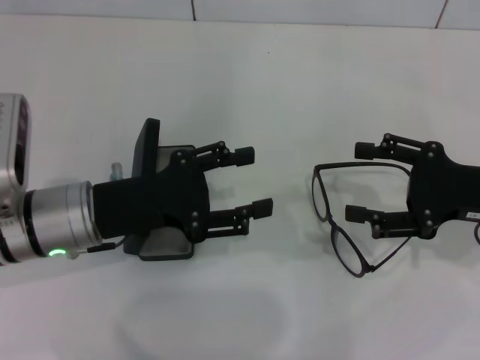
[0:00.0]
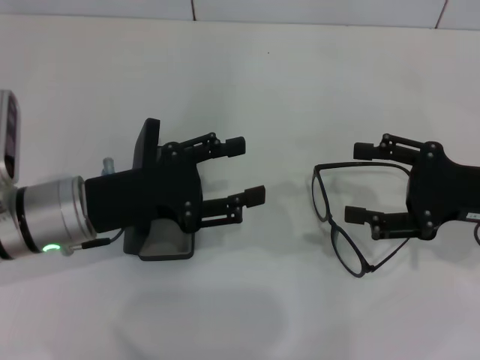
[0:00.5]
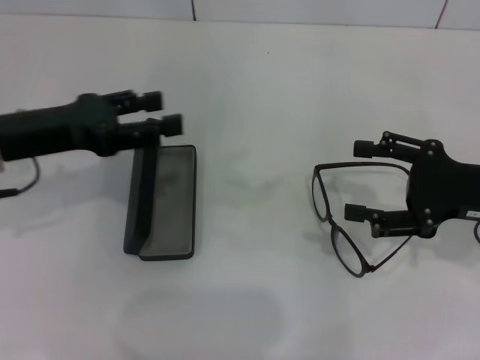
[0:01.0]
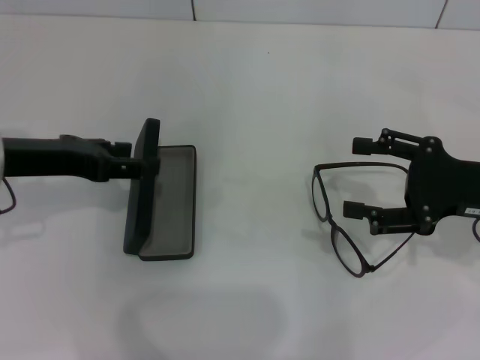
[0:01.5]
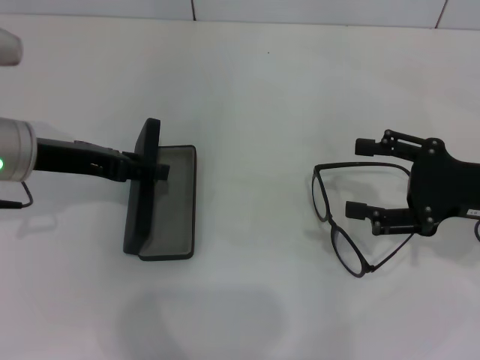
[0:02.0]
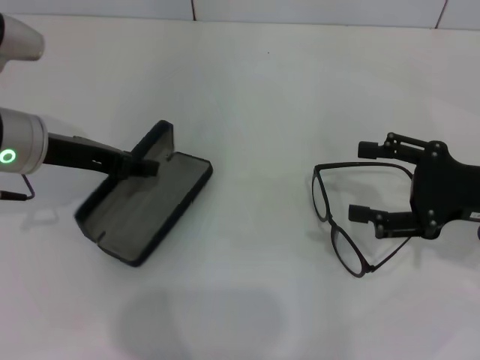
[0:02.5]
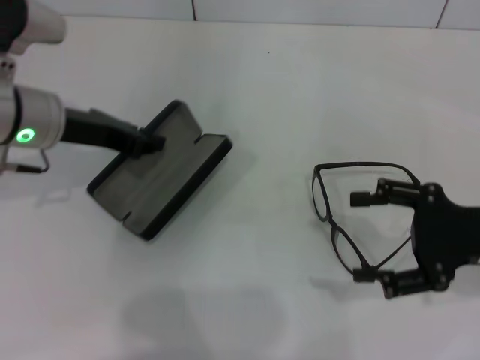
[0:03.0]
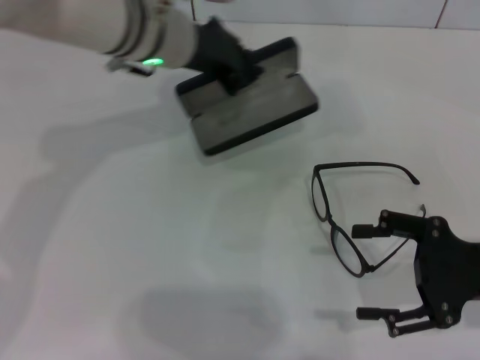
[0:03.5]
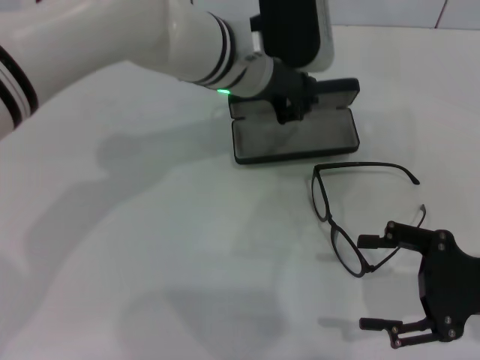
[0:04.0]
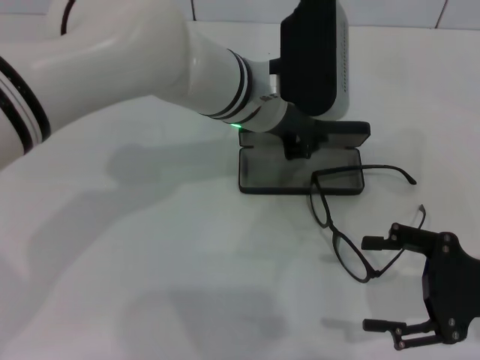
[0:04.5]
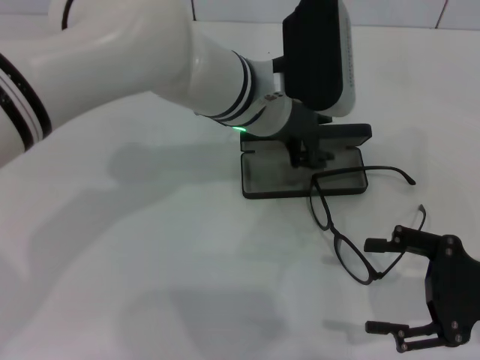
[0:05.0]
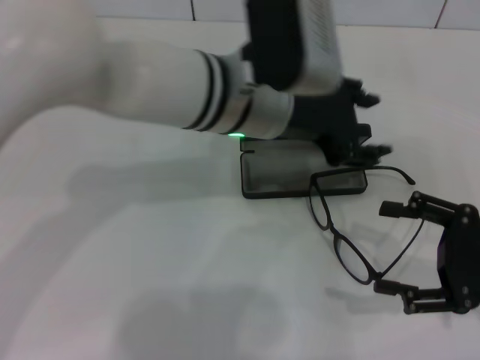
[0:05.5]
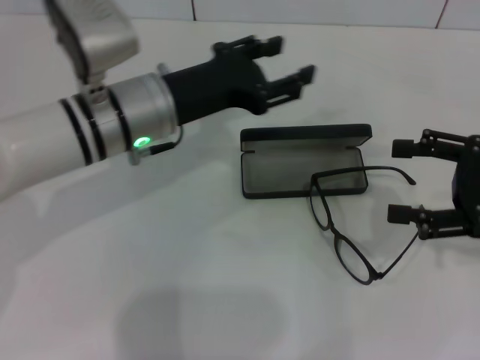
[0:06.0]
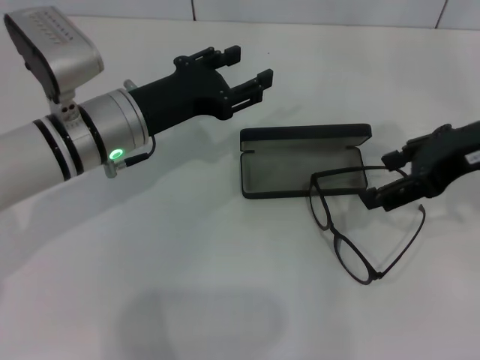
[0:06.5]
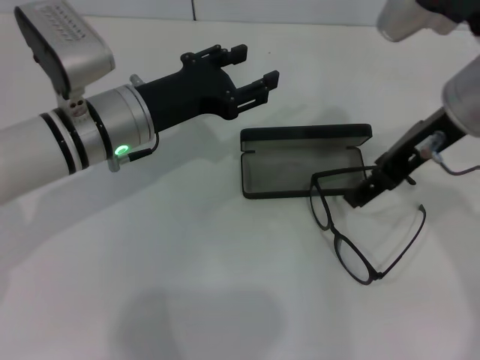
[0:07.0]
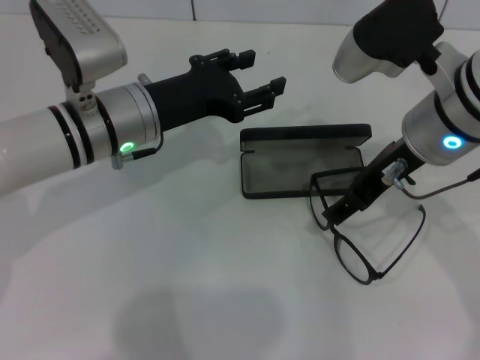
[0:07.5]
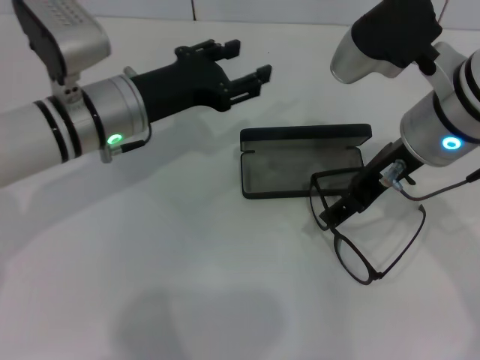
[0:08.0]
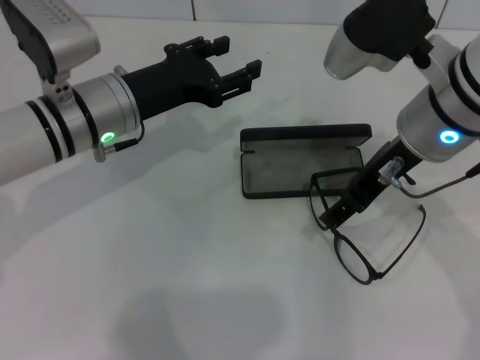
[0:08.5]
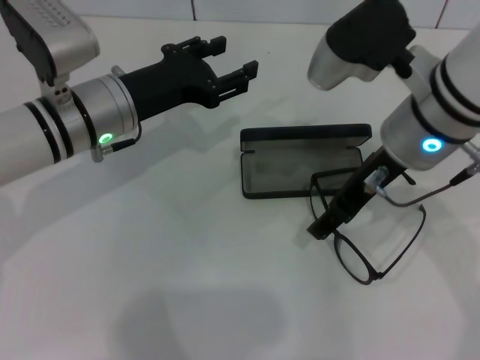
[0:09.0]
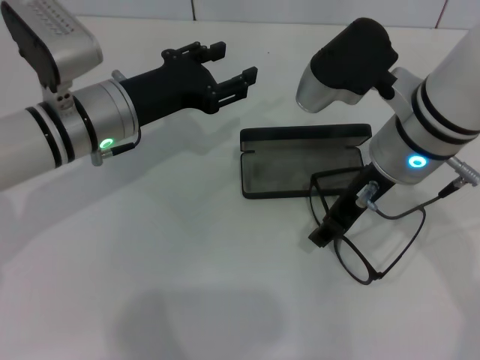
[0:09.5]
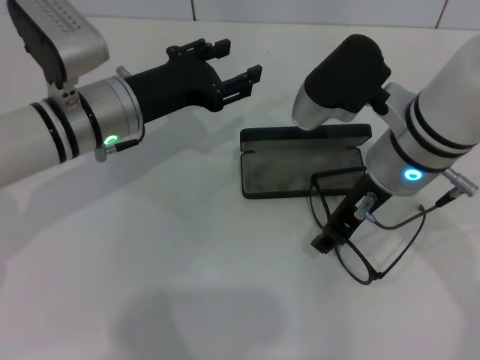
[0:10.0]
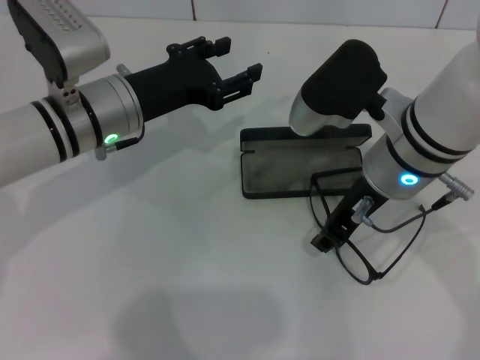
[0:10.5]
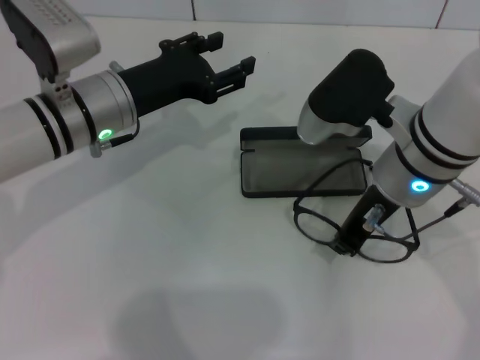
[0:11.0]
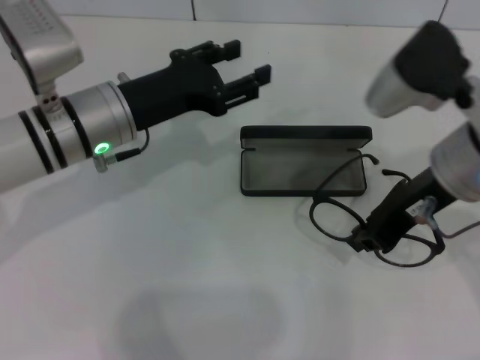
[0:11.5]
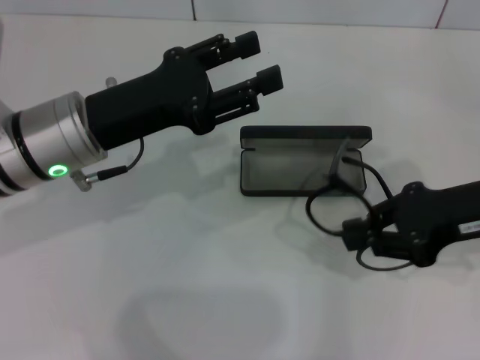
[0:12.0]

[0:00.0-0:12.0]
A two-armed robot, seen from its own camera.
Step, 0.0 to 2.0 s: Grab the glasses case with your left hand.
Step, 2.5 to 5.0 s: Place the glasses case in the center of the table with your left hand.
Step, 5.5 to 10.5 s: Grab the eyeglass frame with your right hand.
0.0 to 2.0 s: The left gripper travels forward and upward by roughly 5 cm.
2.0 to 4.0 s: The right gripper is displaced backward by about 5 cm; the left gripper is displaced to the right by some 20 cm, and closes.
4.0 to 6.0 s: The right gripper travels upward by some 5 cm, while the left gripper shifts some 10 cm to the left and backward, and opens up.
6.0 to 8.0 s: The right gripper goes some 15 cm to the left.
8.0 to 10.0 s: The right gripper closes up.
10.0 to 12.0 s: The left gripper travels backward by roughly 5 cm. The right gripper goes approximately 15 cm to the right, and closes its fingers.

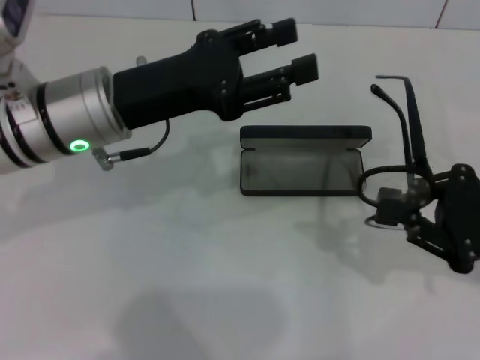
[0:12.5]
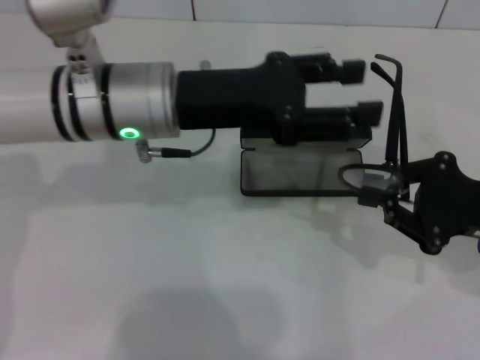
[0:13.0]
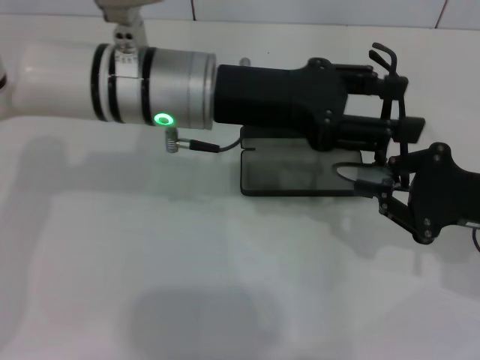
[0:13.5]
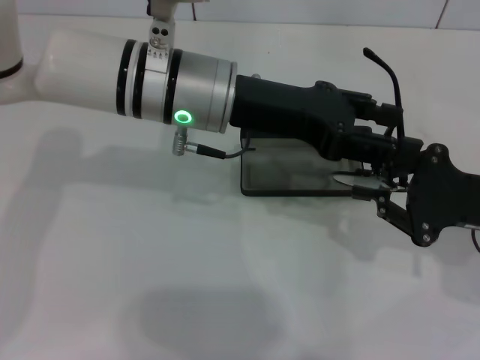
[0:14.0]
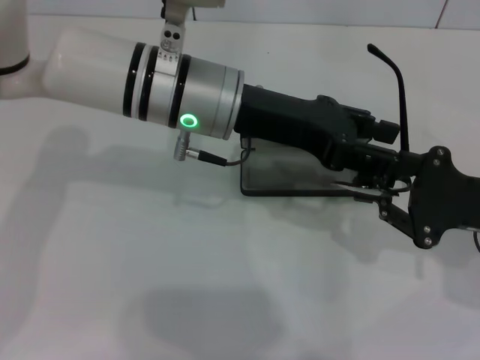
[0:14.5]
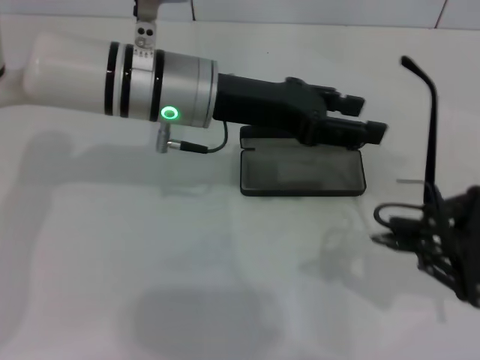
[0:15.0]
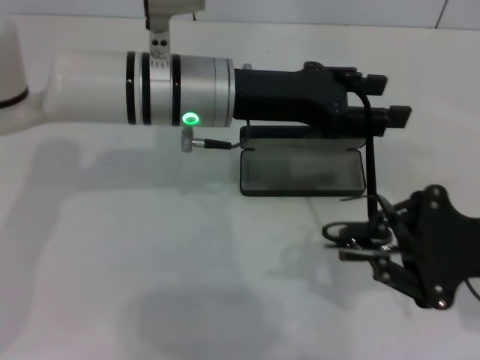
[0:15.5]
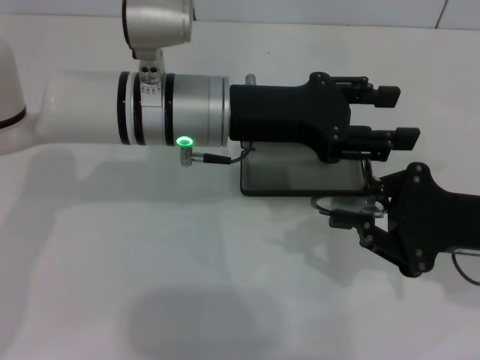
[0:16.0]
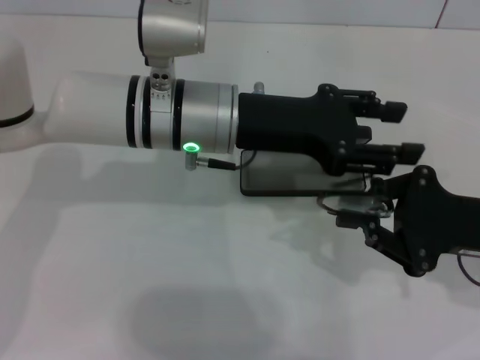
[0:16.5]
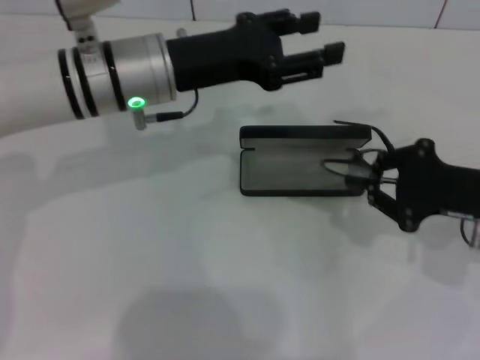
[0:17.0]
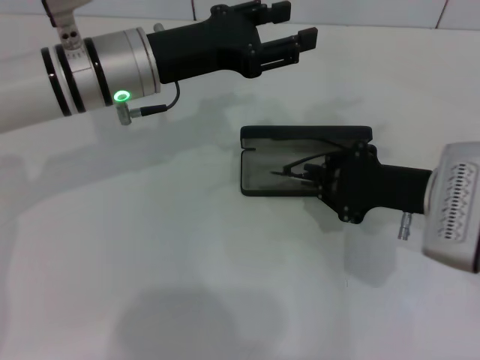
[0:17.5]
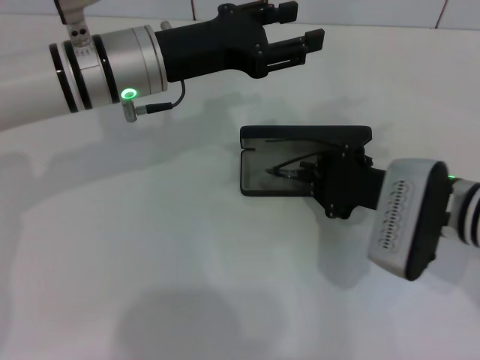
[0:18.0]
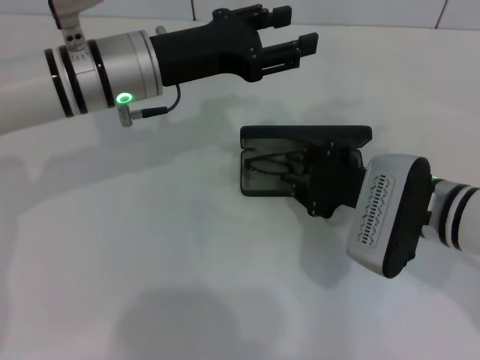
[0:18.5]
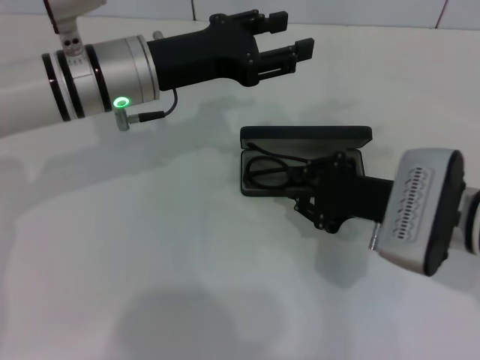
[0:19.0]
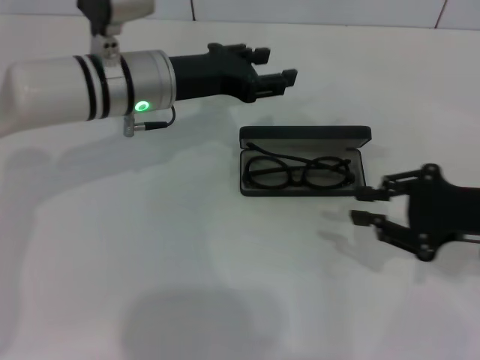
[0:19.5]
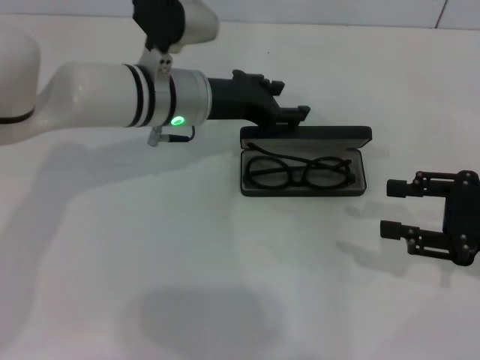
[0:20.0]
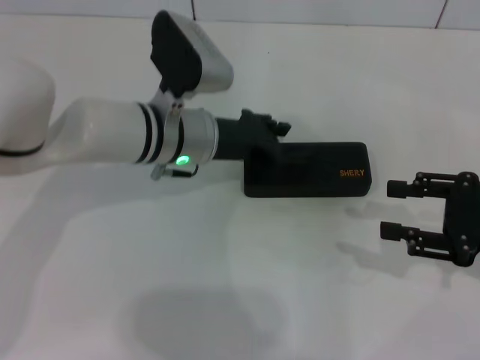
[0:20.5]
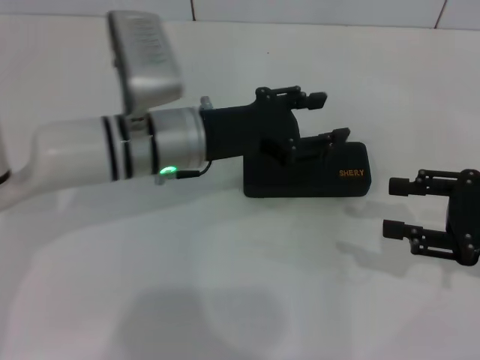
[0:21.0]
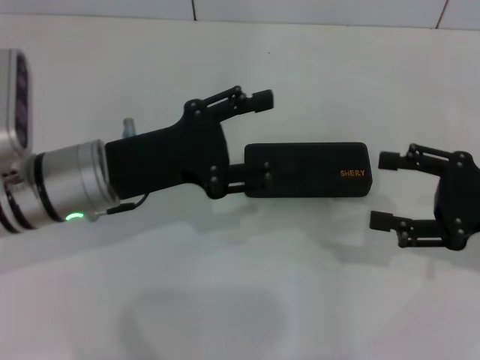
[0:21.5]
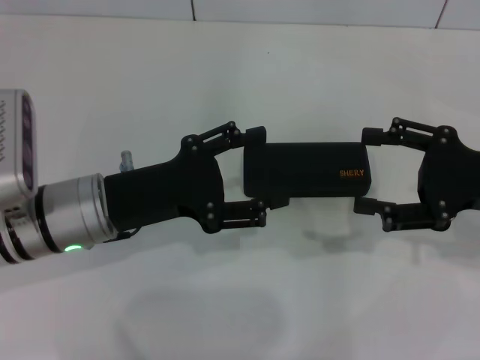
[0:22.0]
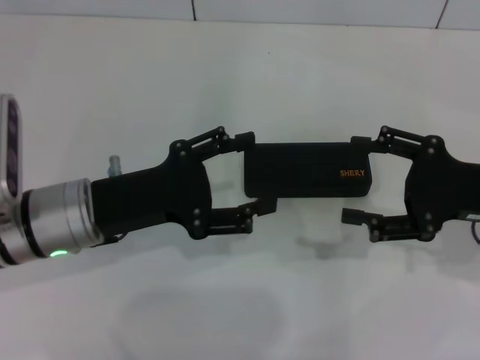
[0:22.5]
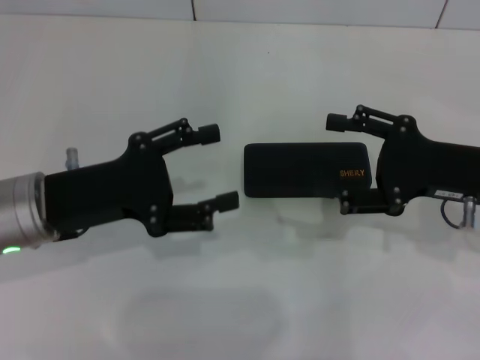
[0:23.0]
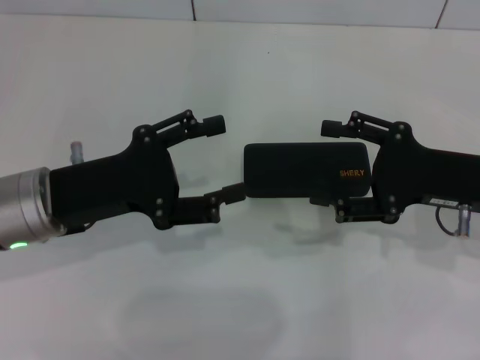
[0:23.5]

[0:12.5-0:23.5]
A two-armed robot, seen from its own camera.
Step, 12.5 to 16.5 s: Fold the frame with your left hand.
Step, 17.0 to 19.0 s: Put the glasses into the case with your right hand.
Step, 19.5 to 20.5 s: Close the glasses case with your left hand.
12.5 to 14.5 s: The left gripper shifts about 10 cm to the right.
16.0 to 18.0 s: Both grippers move to the left, approximately 5 cm.
18.0 to 20.0 s: The right gripper goes some 15 cm to the right, and opens up. The left gripper changes place by approximately 5 cm.
20.0 to 21.5 s: The left gripper goes some 15 cm backward and to the left.
21.5 to 23.5 s: The right gripper changes place by about 5 cm.

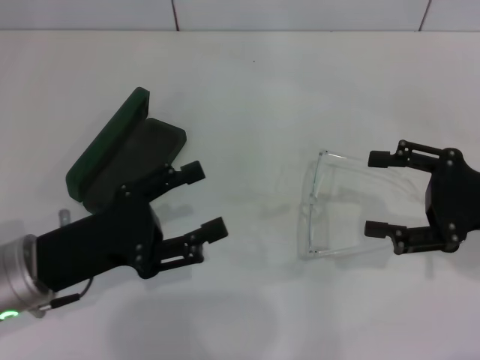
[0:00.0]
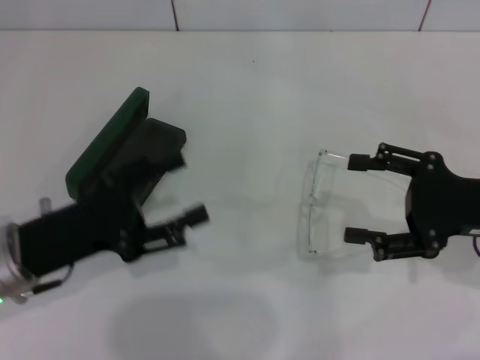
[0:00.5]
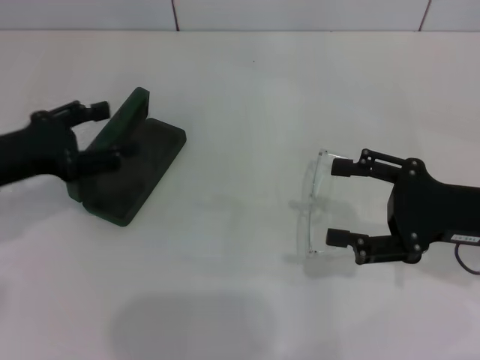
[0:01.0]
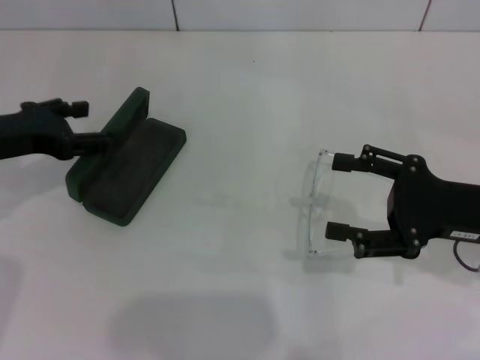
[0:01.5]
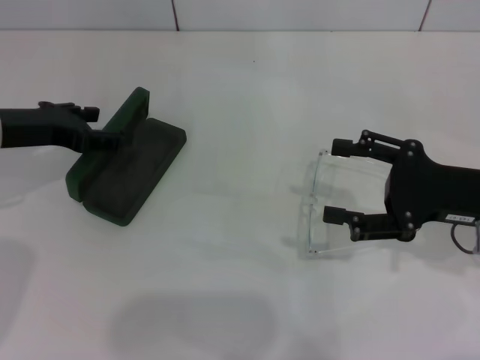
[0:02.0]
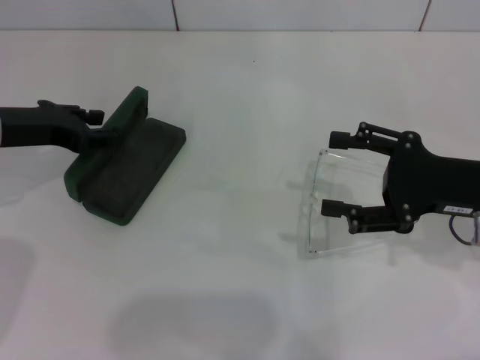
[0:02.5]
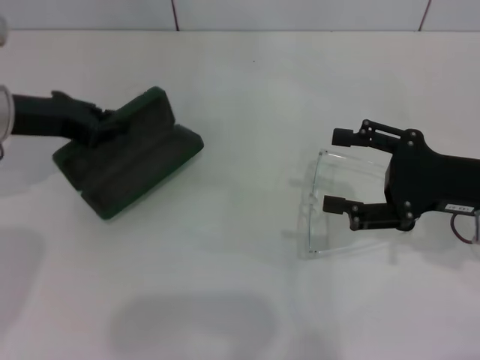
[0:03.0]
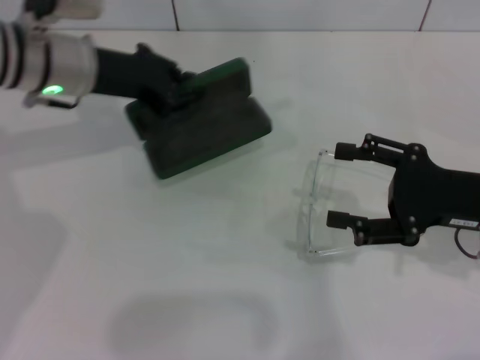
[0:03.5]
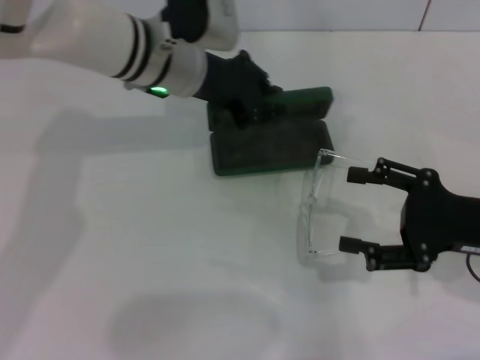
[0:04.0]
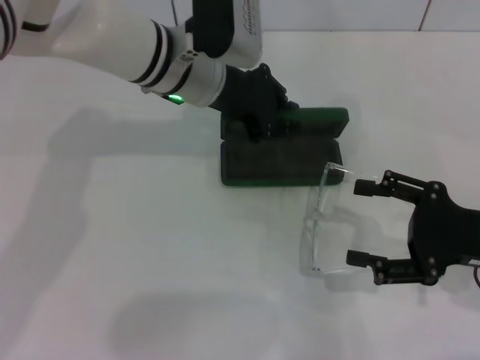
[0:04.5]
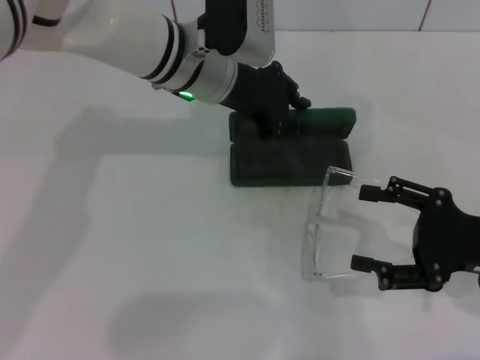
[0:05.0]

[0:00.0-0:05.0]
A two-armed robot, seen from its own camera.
Step, 0.0 to 2.5 s: Grab the glasses case with your left hand.
Step, 3.0 to 5.0 s: Place the glasses case in the center of the table with your left hand.
0.0 to 2.5 s: The left gripper shifts some 15 cm forward, upward and to the left.
2.5 to 5.0 s: The left gripper shifts roughly 20 cm to the right, and closes up; the right gripper shifts by about 5 cm.
